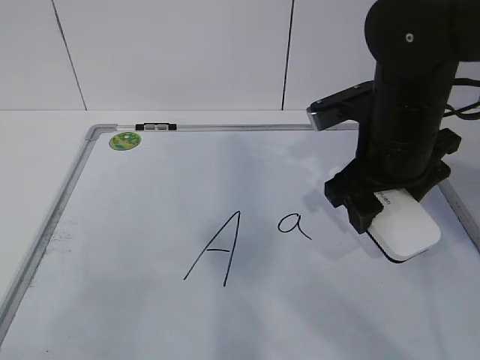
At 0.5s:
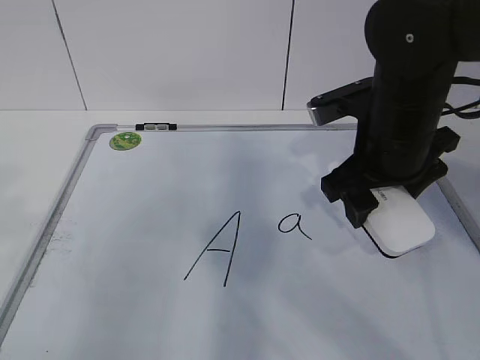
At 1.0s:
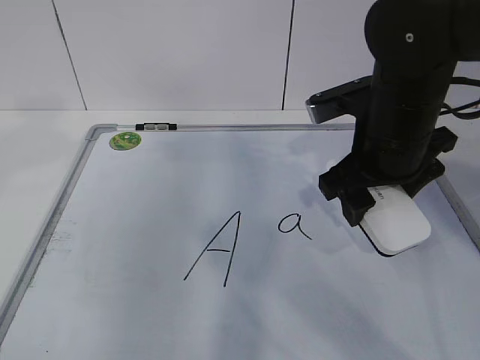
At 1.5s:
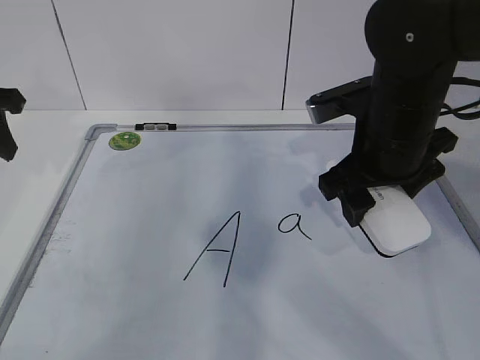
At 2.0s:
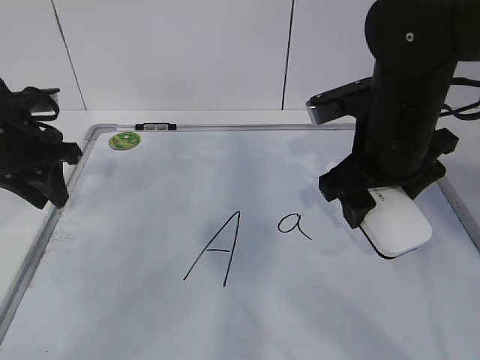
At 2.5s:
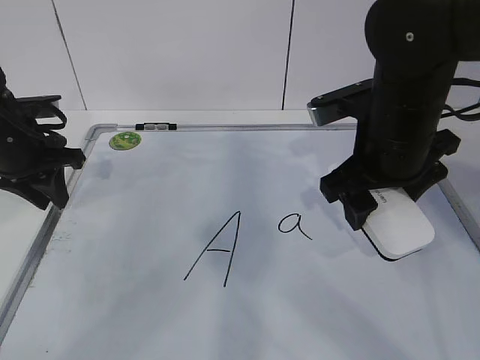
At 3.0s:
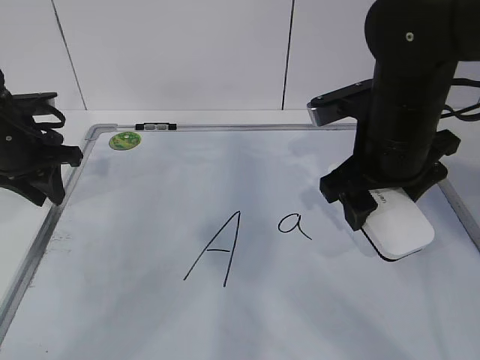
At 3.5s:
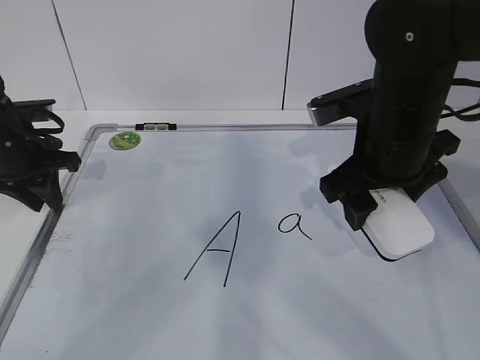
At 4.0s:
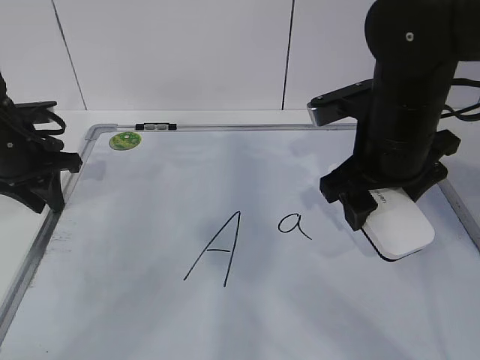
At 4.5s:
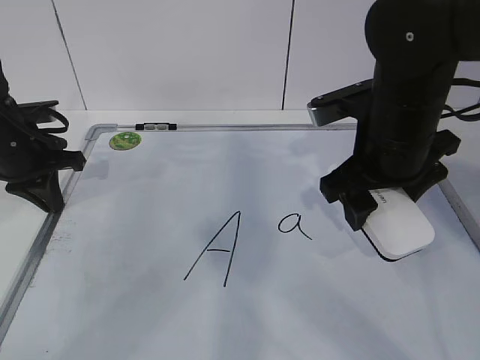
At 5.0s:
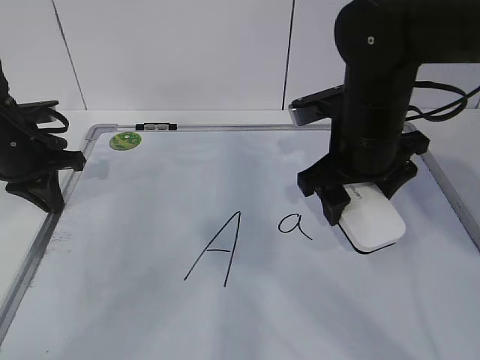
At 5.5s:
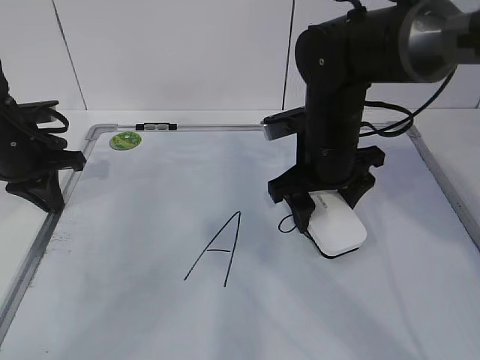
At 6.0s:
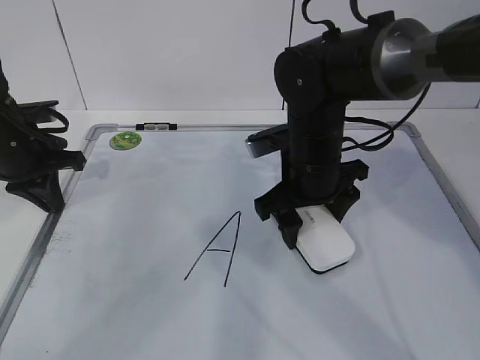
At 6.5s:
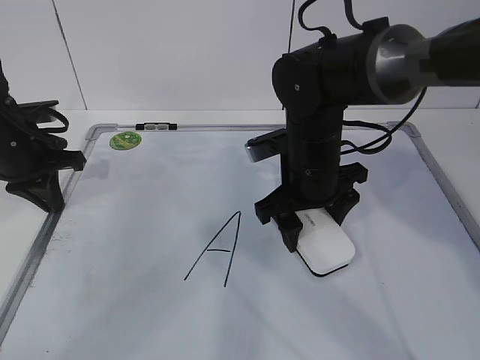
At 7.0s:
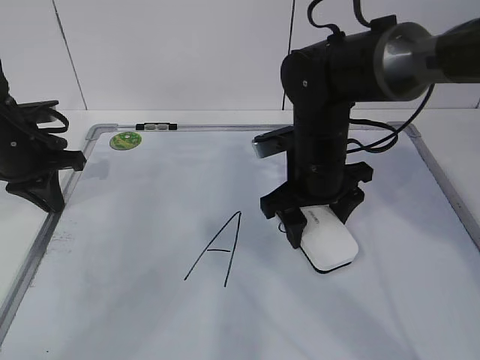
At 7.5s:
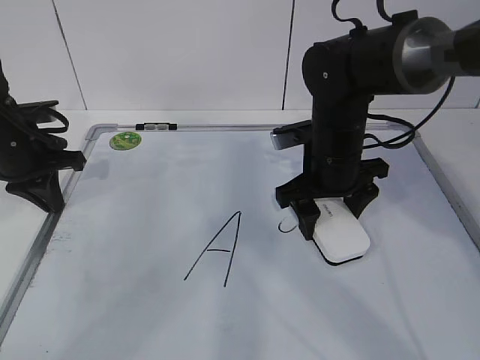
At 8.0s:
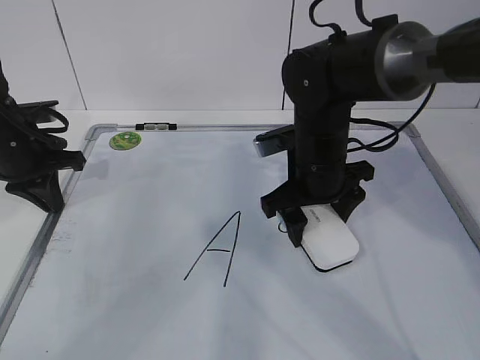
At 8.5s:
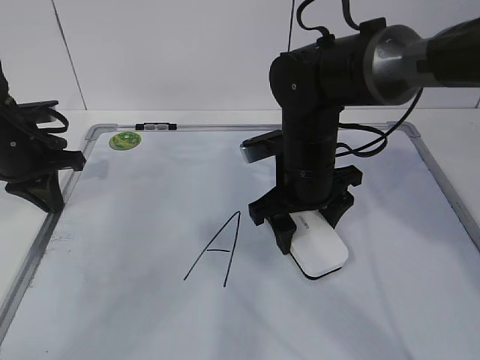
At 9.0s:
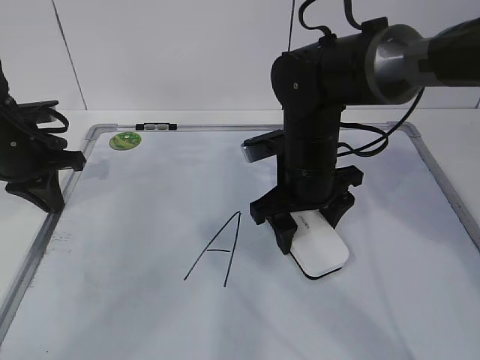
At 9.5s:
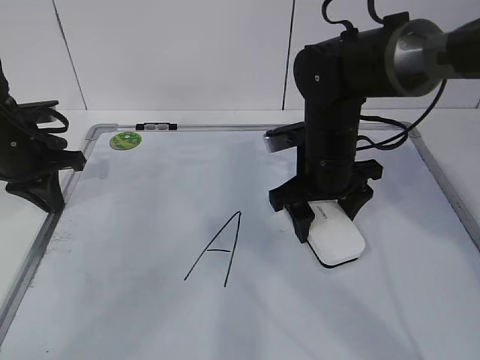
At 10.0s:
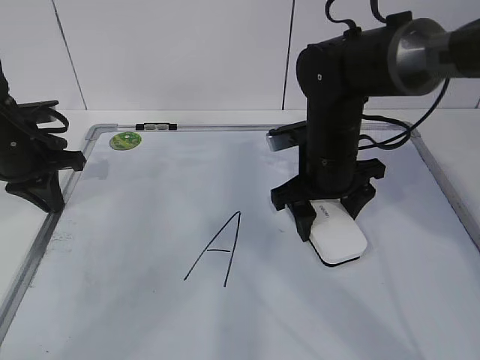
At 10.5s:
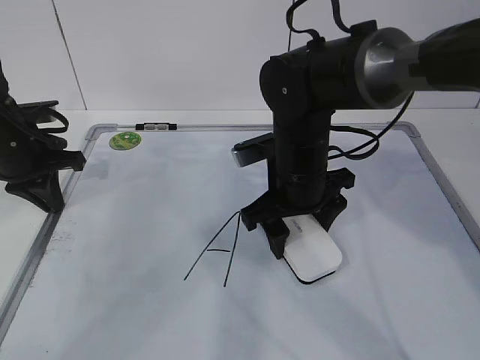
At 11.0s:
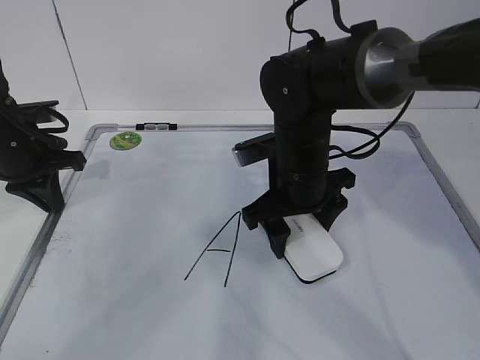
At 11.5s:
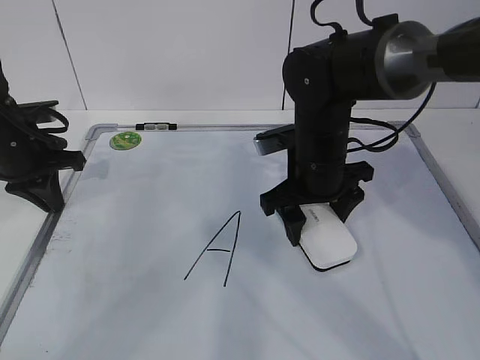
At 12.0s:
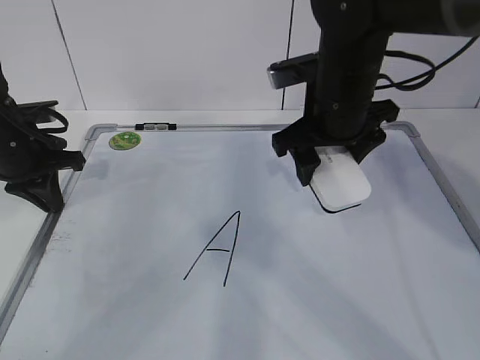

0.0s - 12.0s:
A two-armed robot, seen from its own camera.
Task of the whole recording: pick up the eraser on the blackboard and erase the letter "a".
Step, 2.0s - 7.5s: Erase the letter a with your right hand.
0.0s - 2.0s: The left gripper shifts about 35 cm forward, and closes its fingers.
2.0s - 4.0s: The grippers make only small movements.
4.0s - 6.0s: The left gripper closes. The right gripper shifts approximately 10 cm downward and to the left.
6.0s - 10.0s: The grippers make only small movements.
10.0s - 12.0s: The right gripper moves upward, roughly 10 cm.

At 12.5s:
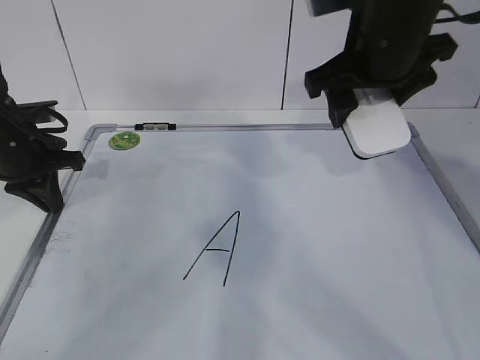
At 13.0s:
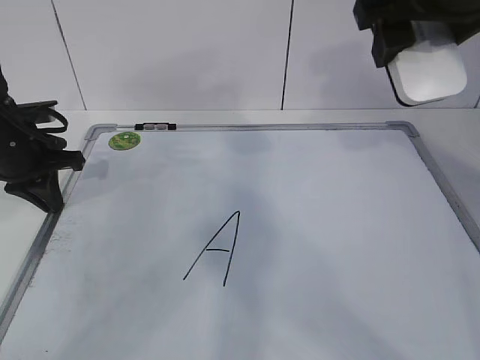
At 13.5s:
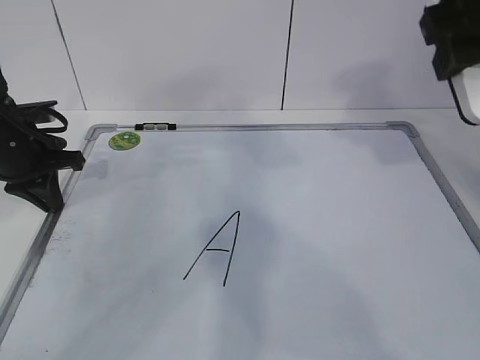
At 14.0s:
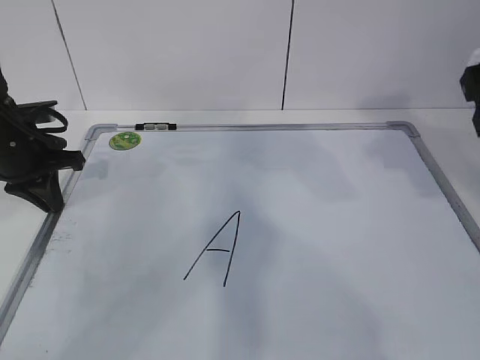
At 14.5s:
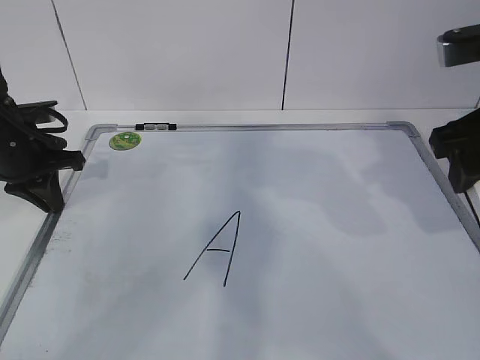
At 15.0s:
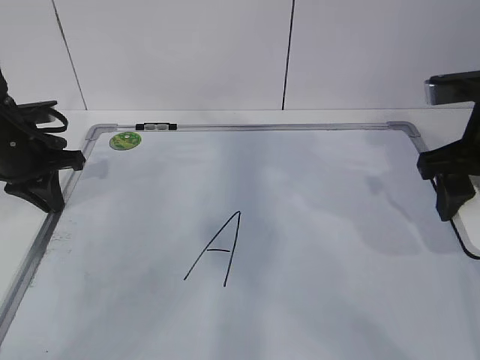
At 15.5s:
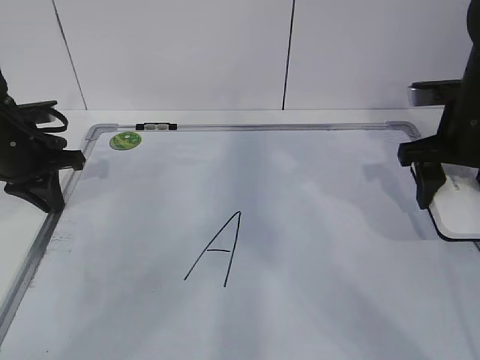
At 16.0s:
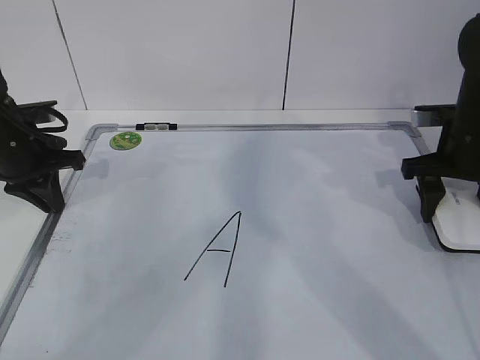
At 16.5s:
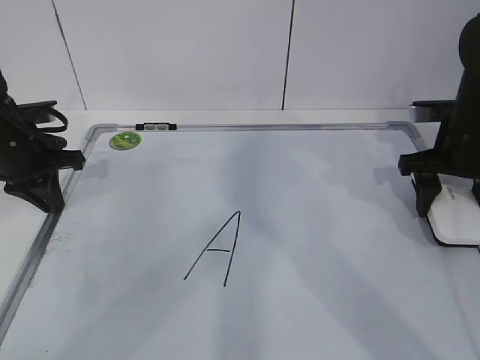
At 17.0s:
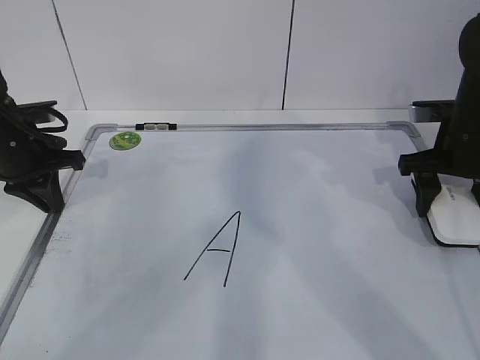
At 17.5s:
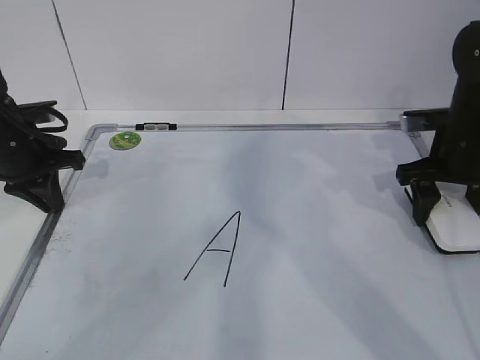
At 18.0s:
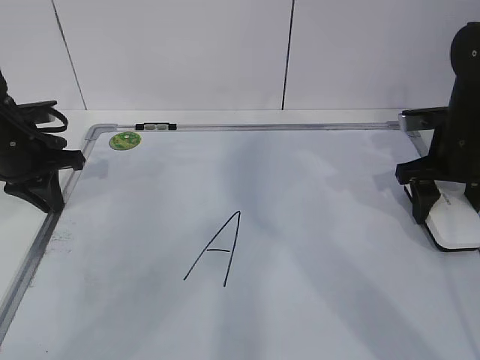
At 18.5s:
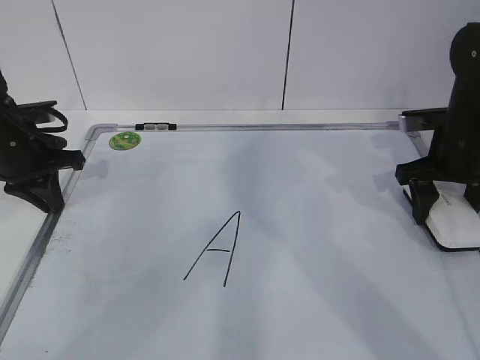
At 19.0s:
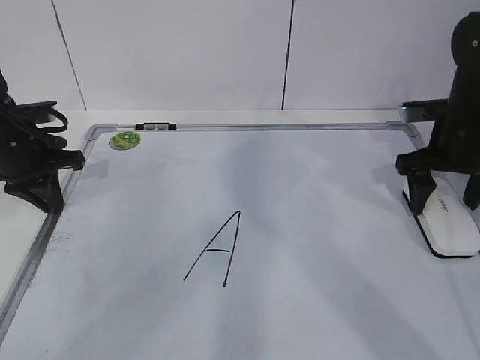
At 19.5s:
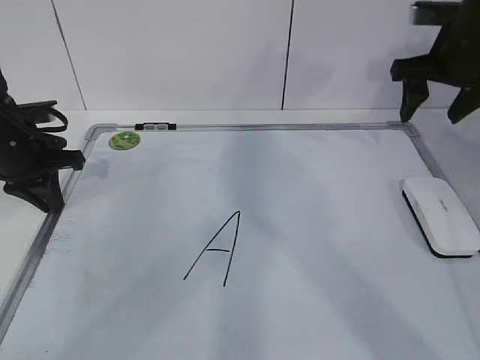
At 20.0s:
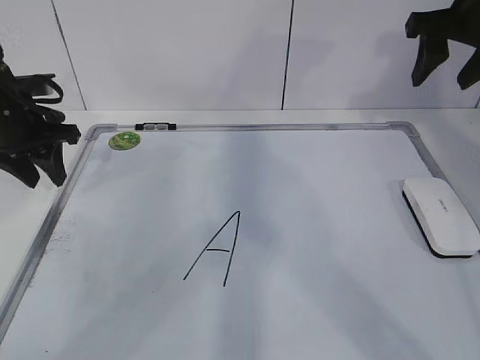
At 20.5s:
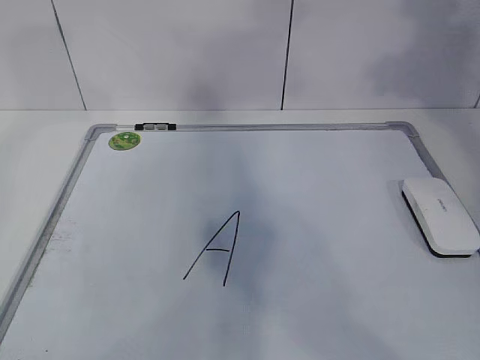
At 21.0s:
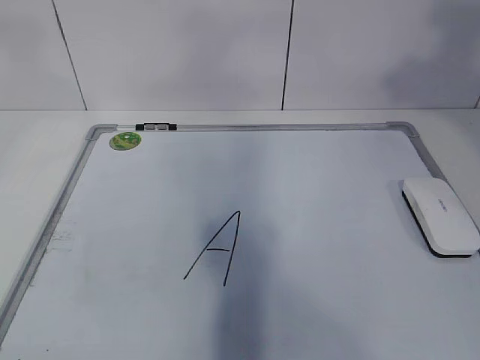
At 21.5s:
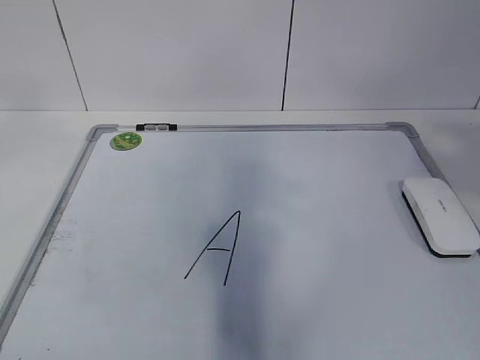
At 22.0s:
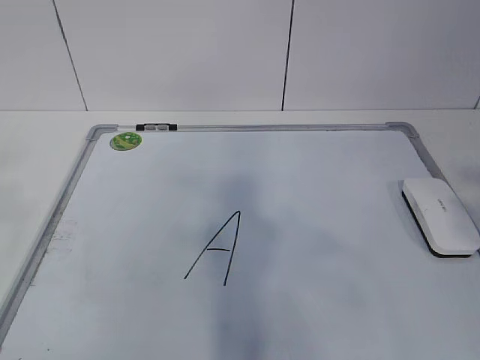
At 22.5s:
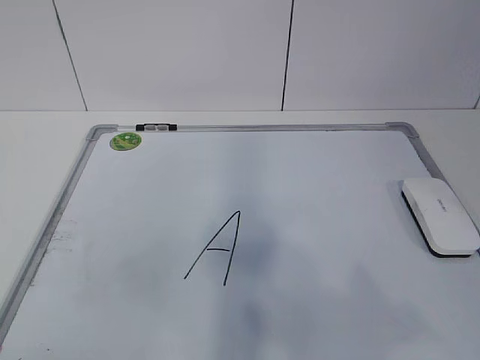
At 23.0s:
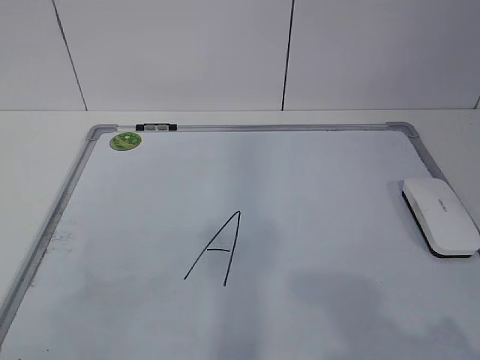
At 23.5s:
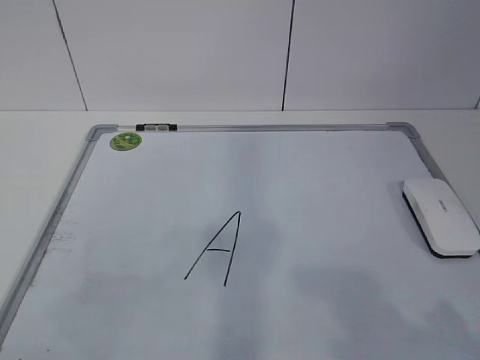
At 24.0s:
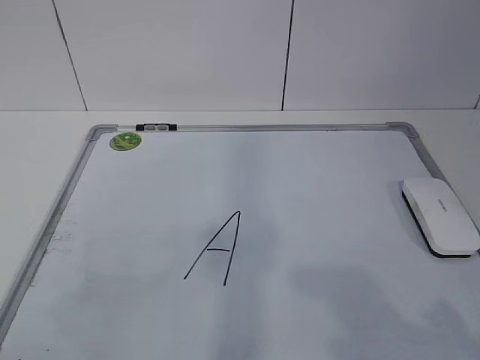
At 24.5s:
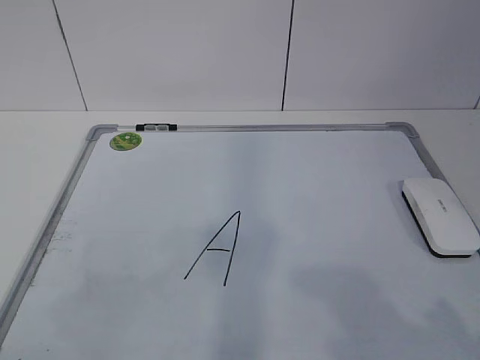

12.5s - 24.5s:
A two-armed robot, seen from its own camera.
Task of the whole recording: pick up the eraser on the blackboard and erase the letter "a".
12.5s - 14.5s: The right gripper travels to the right and backward by roughly 10 cm.
14.5s - 16.5s: The right gripper heads downward, forward and to the right, covering roughly 15 cm.
16.5s - 18.5s: There are only small adjustments of the grippers.
18.5s - 20.5s: The grippers both shift upward by roughly 25 cm. The right gripper closes up. The left gripper opens up.
20.5s - 22.5s: The two grippers go some 35 cm backward.
22.5s - 24.5s: The right gripper shifts roughly 10 cm downward.

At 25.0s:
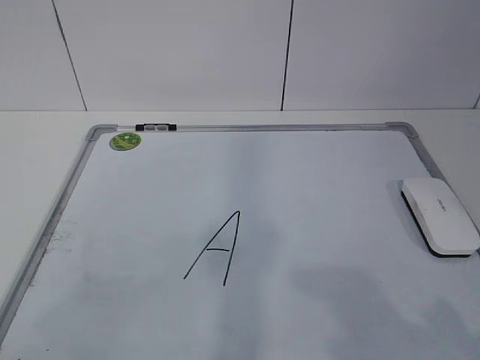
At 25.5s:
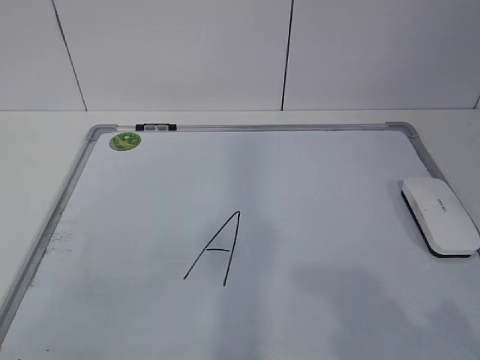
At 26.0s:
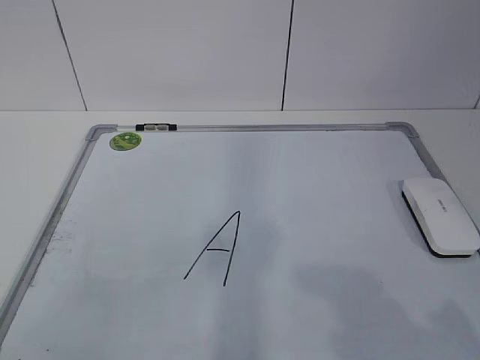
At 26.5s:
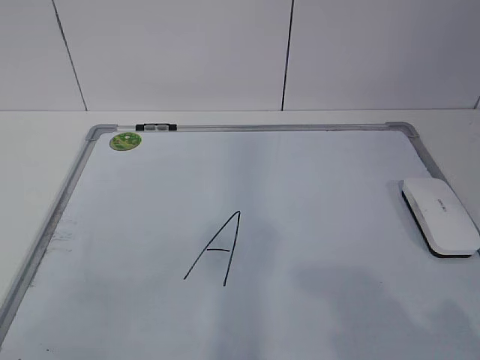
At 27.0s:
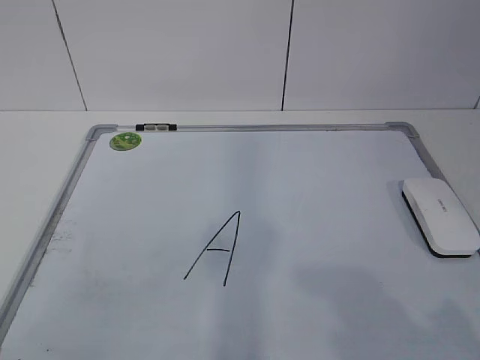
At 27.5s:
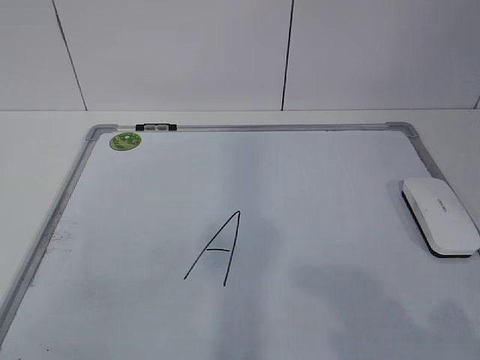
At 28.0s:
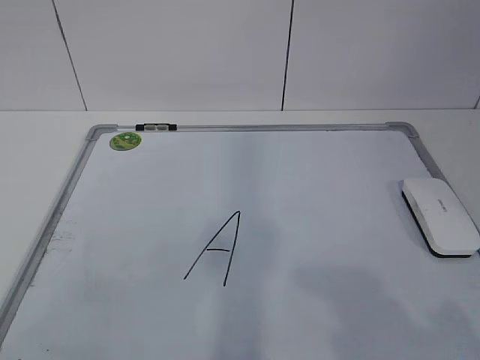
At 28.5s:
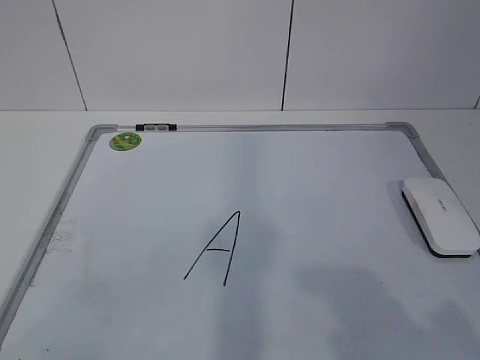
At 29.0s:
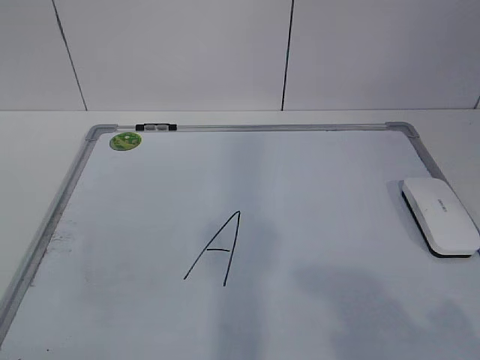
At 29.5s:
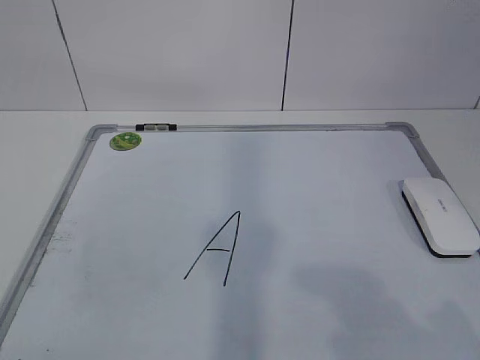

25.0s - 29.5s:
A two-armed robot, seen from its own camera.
Task of the whole recording: pick up the eraser on the blackboard and erase the letter "a".
27.0s - 29.5s: Both grippers stay put.
